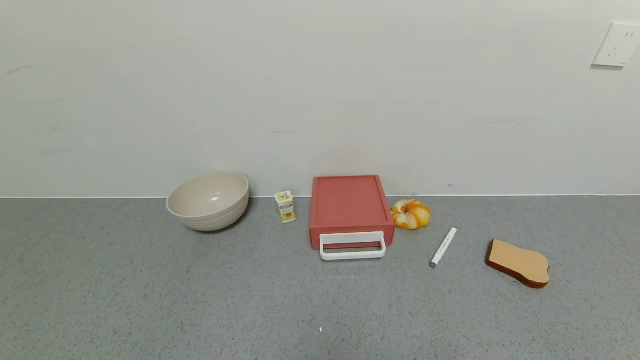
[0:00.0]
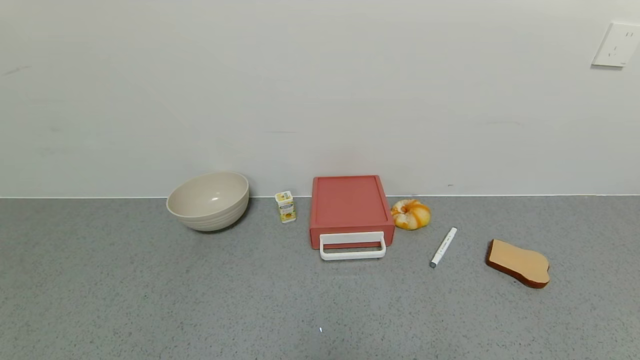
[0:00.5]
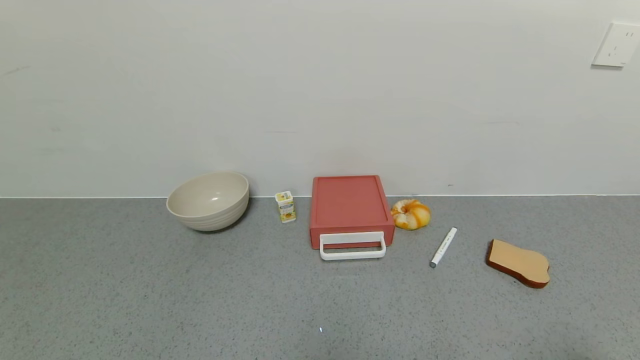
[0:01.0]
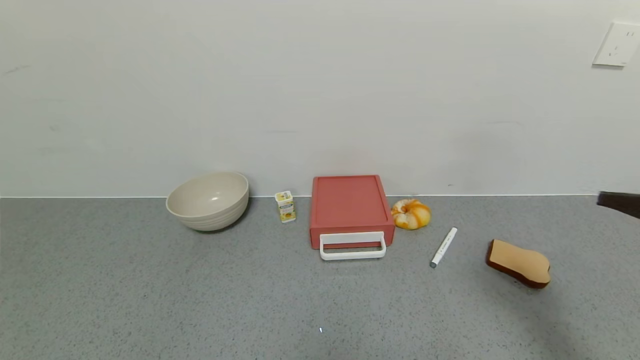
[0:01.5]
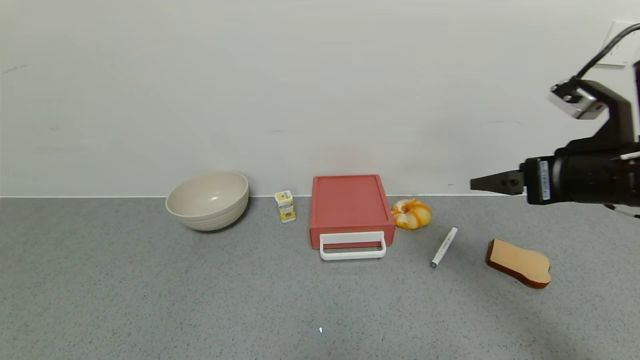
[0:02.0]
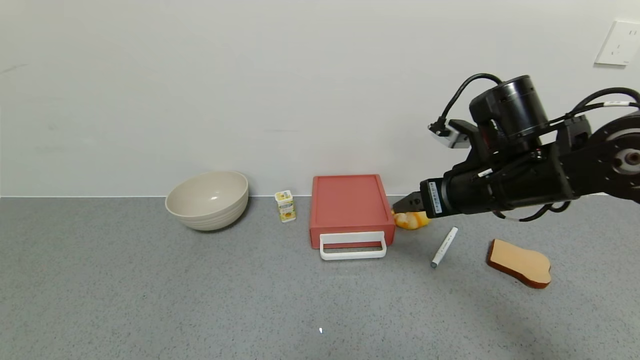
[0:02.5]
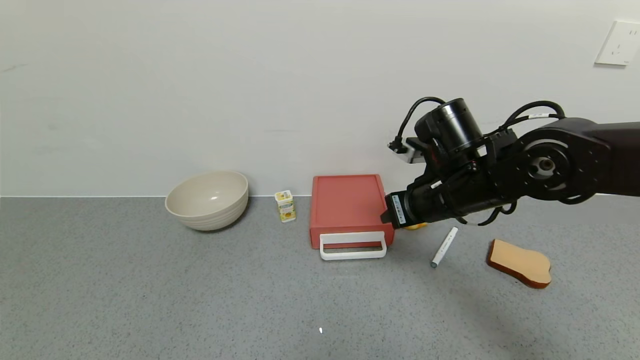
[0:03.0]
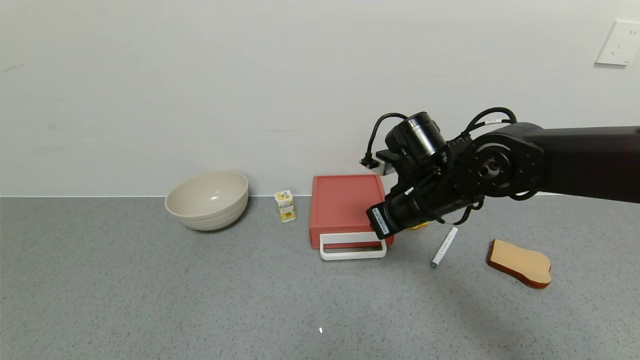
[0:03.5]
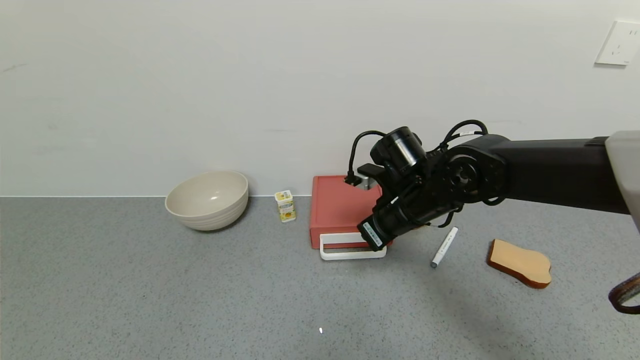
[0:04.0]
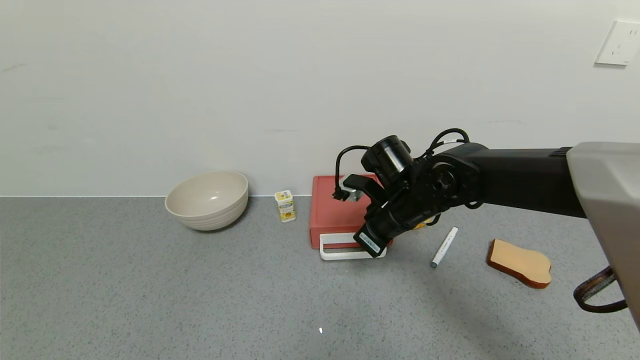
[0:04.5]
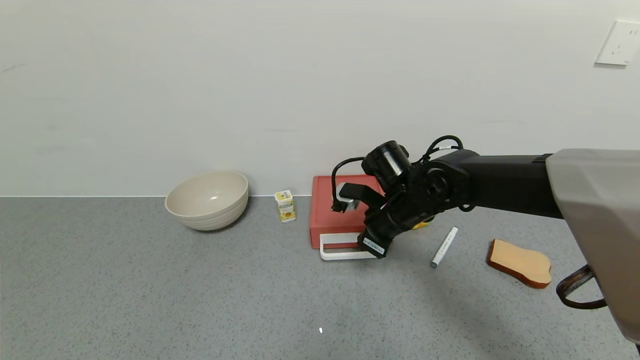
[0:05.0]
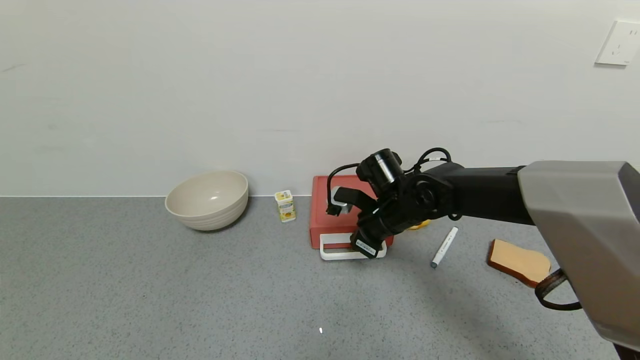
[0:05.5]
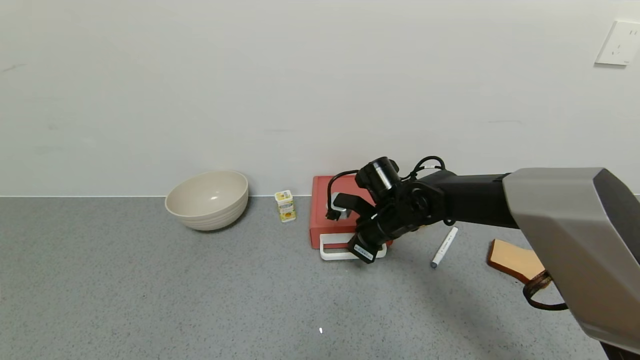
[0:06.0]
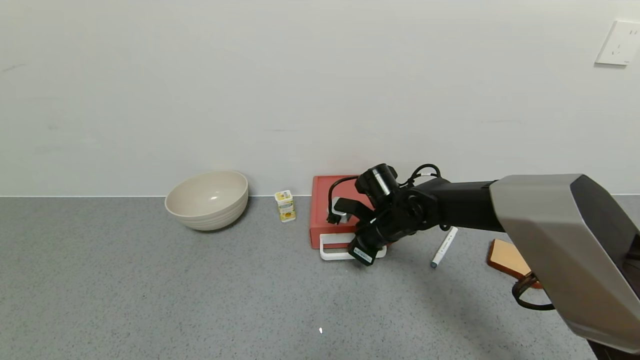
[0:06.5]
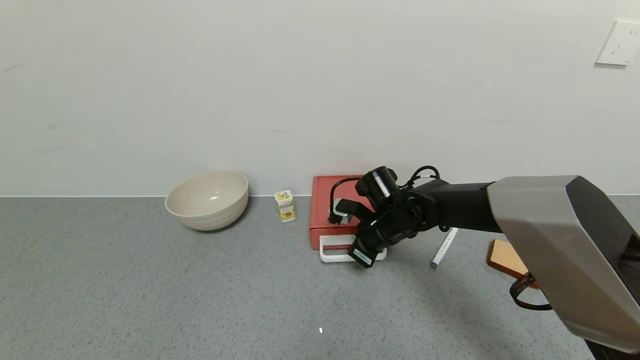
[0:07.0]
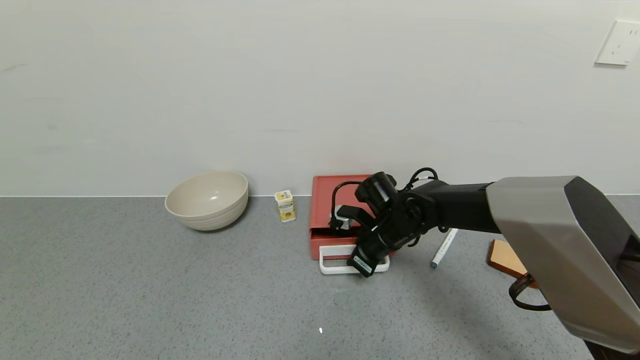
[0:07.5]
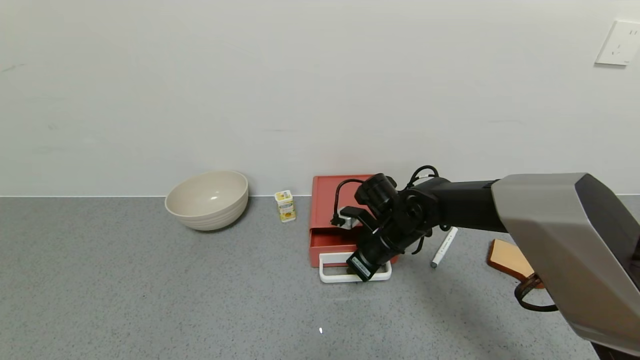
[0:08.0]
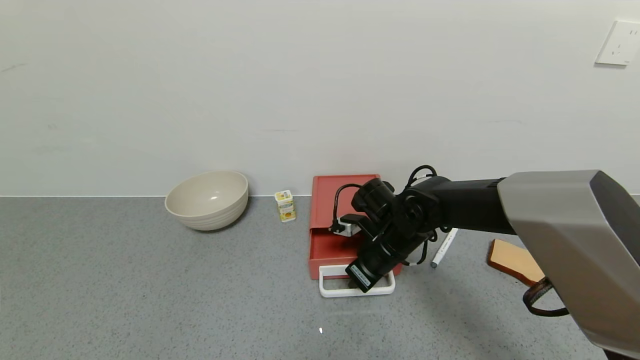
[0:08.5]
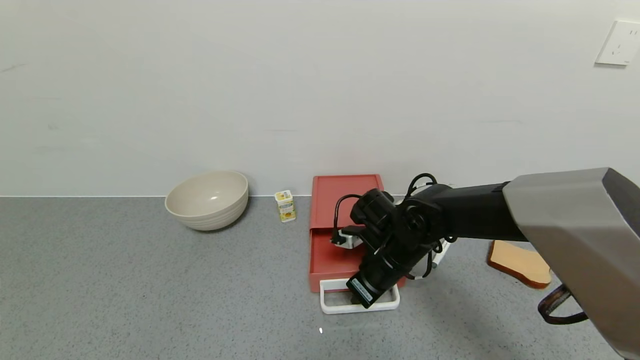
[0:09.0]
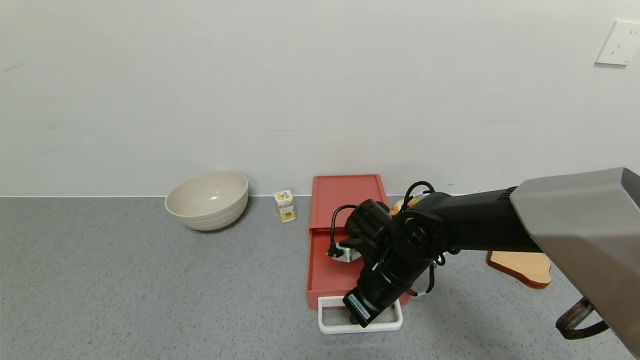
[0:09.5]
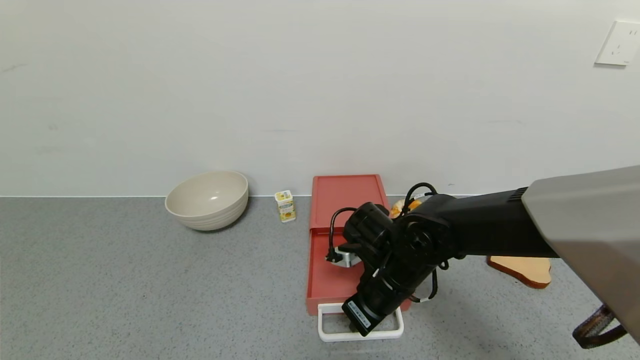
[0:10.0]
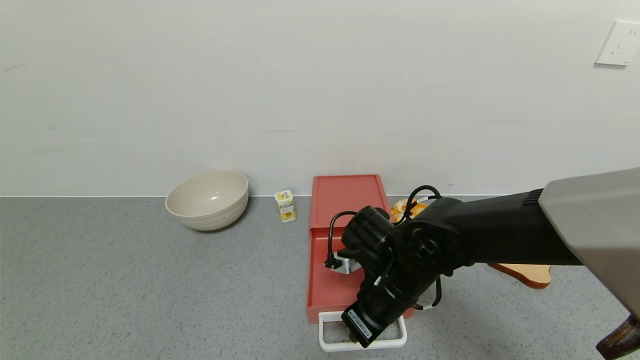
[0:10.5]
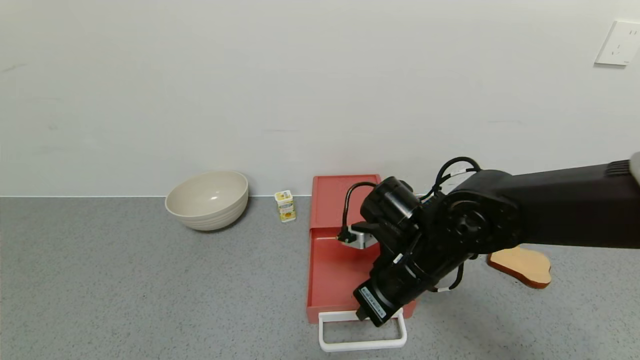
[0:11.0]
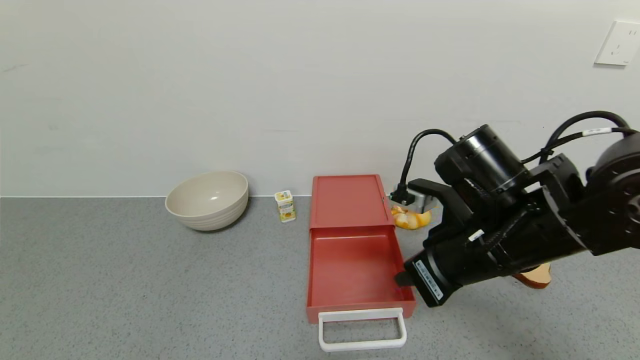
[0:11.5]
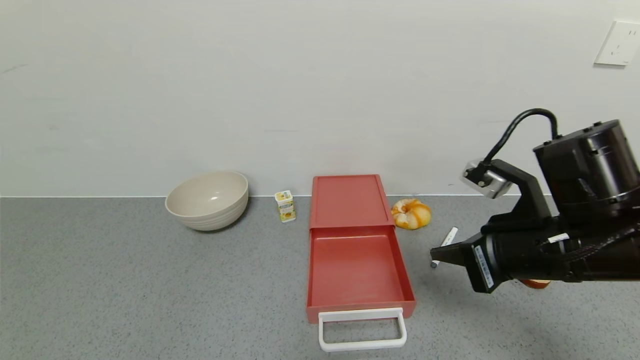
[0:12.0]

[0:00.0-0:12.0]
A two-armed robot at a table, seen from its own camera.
Task of the whole recording: use the gripper to open the drawer and close the red drawer.
Step, 0:00.0 to 0:11.5: Open the red drawer with the right gripper.
0:00.0 to 0:02.0: The right gripper goes approximately 35 cm forward and upward.
0:02.0 to 0:04.0: The right gripper moves to the left, downward and forward, some 20 cm, and closes its fingers.
0:04.0 to 0:06.0: The right gripper travels downward by roughly 5 cm.
0:08.0 to 0:10.0: The right gripper travels backward by approximately 10 cm.
0:10.0 to 0:12.0: The right gripper moves to the right, upward and backward, about 20 cm.

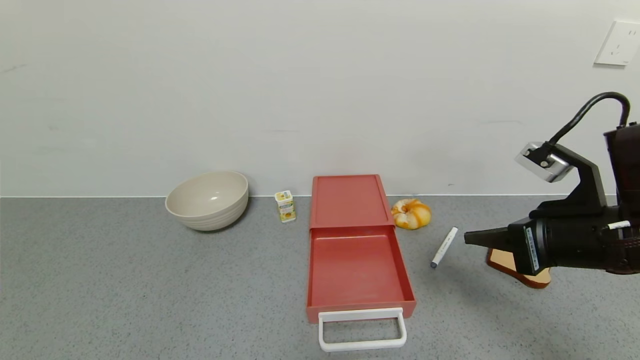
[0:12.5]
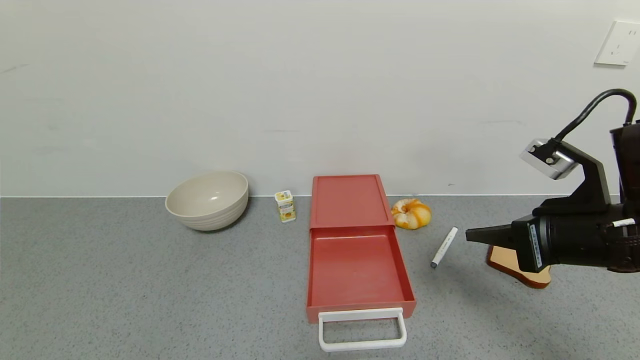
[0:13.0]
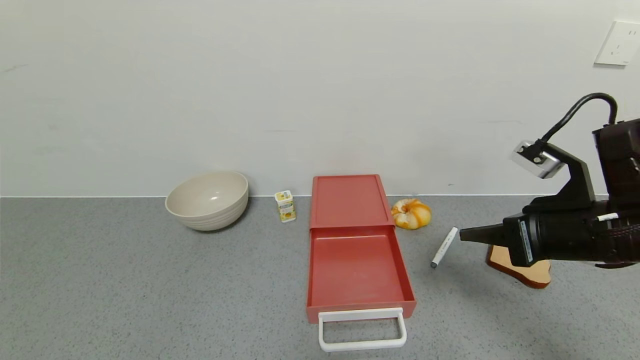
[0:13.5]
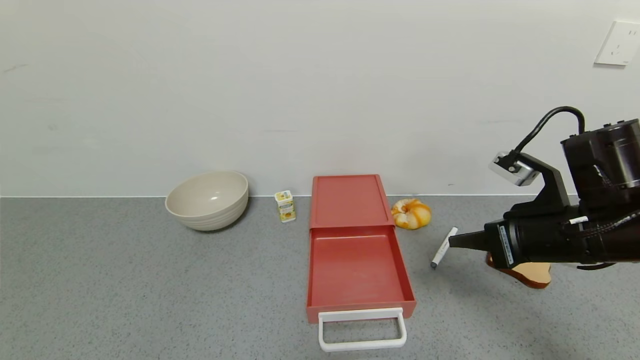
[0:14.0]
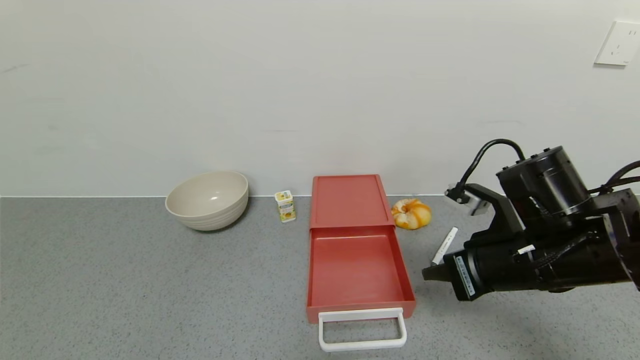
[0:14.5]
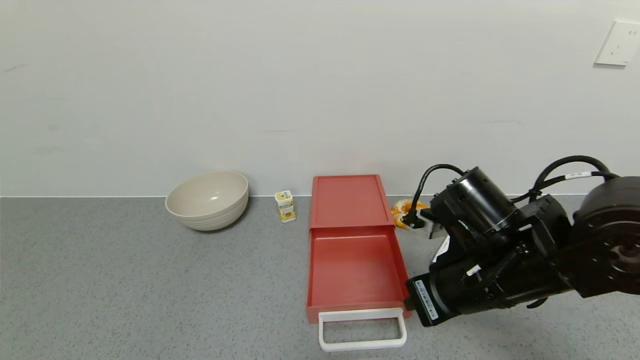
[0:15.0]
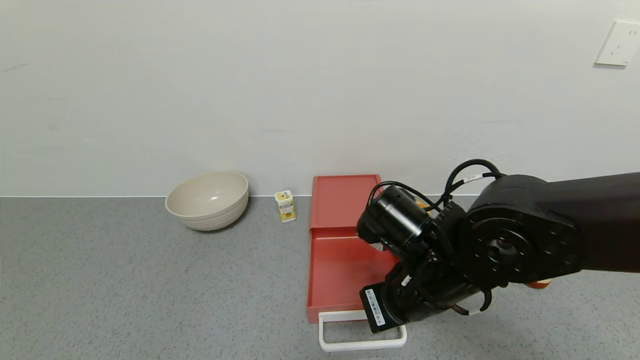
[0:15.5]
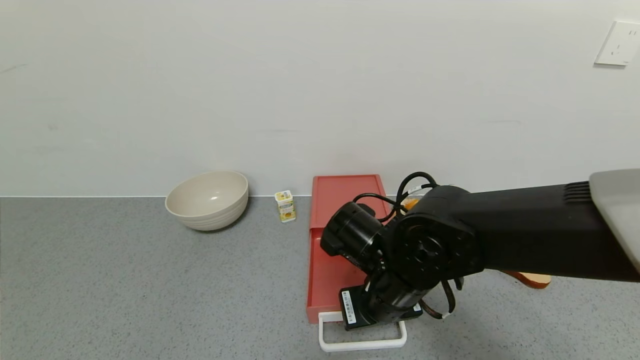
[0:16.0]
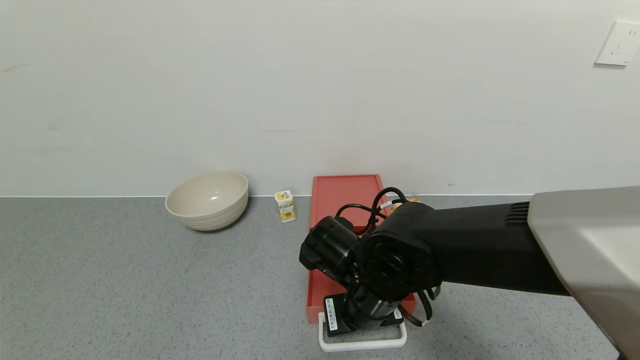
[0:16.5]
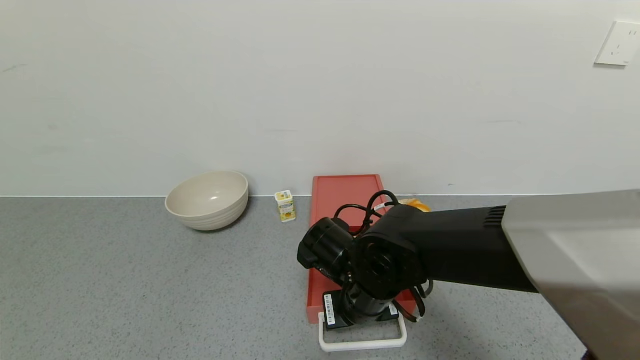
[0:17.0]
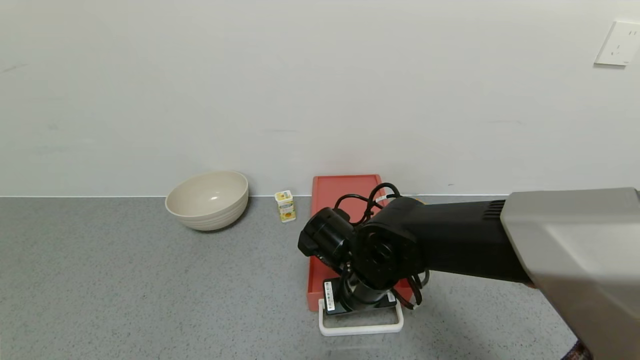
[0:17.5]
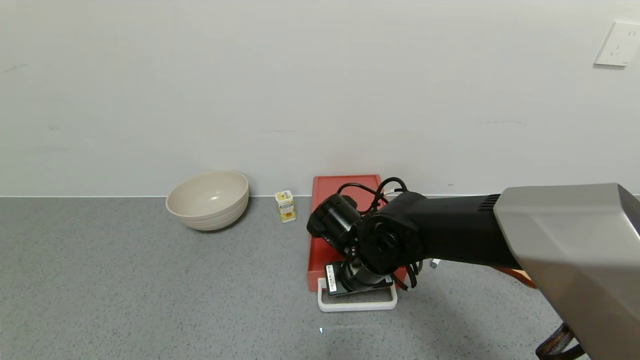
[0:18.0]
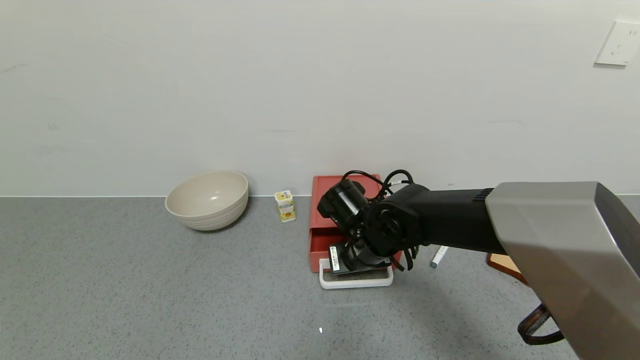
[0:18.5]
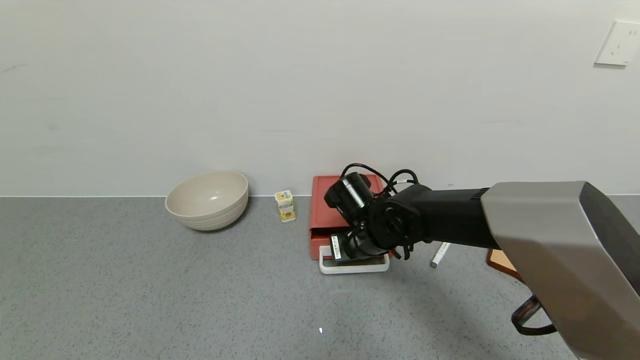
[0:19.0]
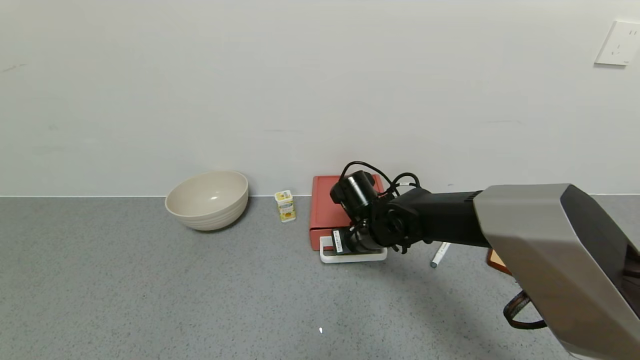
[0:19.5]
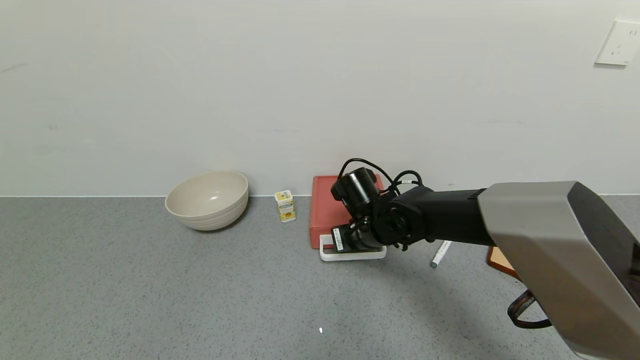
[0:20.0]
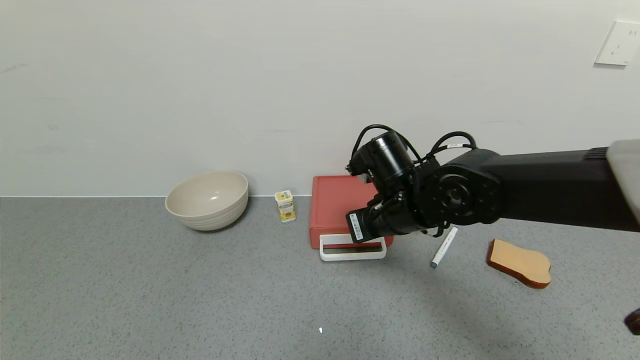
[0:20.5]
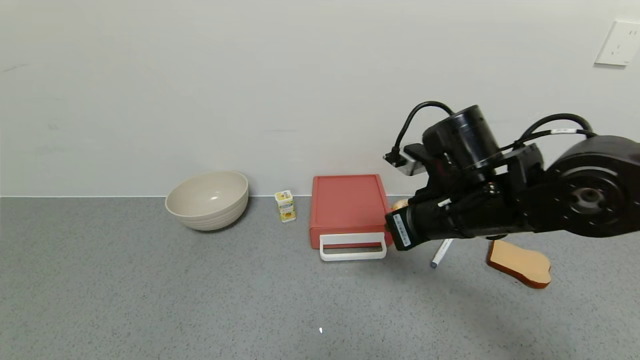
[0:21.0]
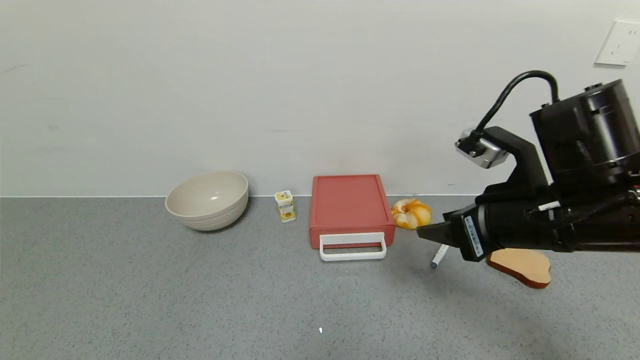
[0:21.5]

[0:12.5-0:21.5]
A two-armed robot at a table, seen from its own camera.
Task of the whole recording: use the gripper to open the drawer and close the red drawer.
Step, 0:12.5 to 0:20.5: Close the red drawer with the right gripper.
0:12.5 to 0:14.5: The right gripper heads to the left, covering approximately 5 cm.
0:14.5 to 0:17.0: The right gripper shifts approximately 20 cm to the left and downward.
0:17.0 to 0:19.5: The right gripper is displaced forward by about 10 cm.
0:19.5 to 0:21.5: The right gripper moves backward, to the right and upward, about 25 cm, and opens its fingers.
